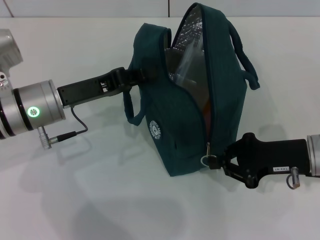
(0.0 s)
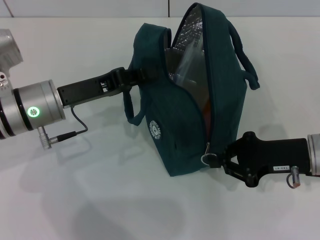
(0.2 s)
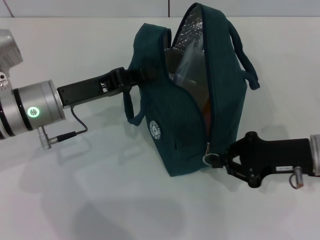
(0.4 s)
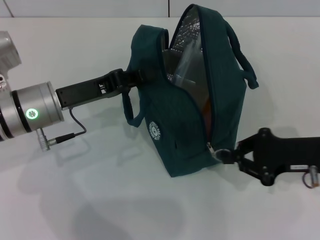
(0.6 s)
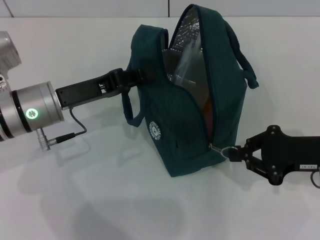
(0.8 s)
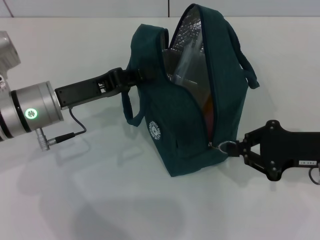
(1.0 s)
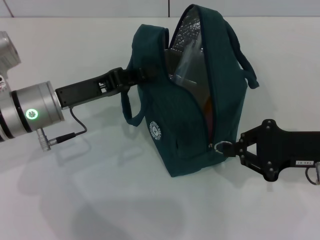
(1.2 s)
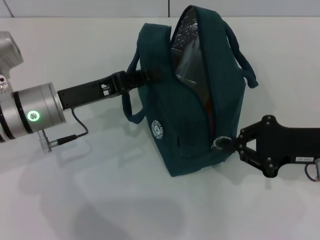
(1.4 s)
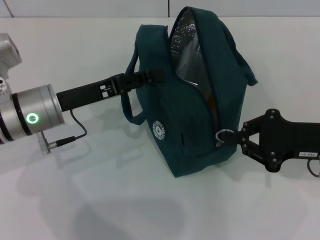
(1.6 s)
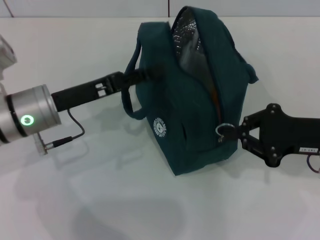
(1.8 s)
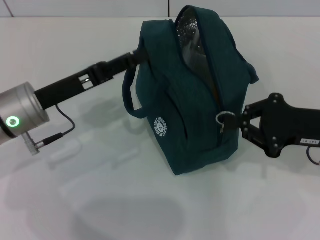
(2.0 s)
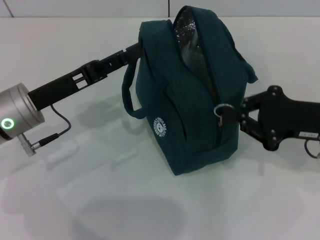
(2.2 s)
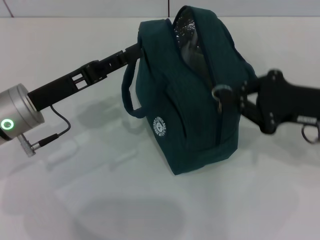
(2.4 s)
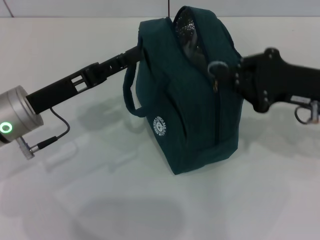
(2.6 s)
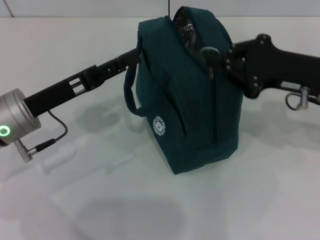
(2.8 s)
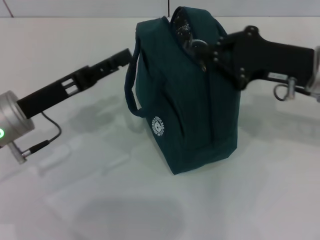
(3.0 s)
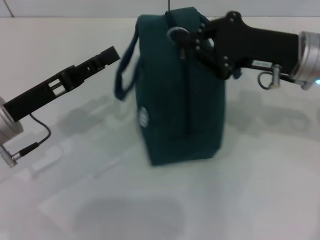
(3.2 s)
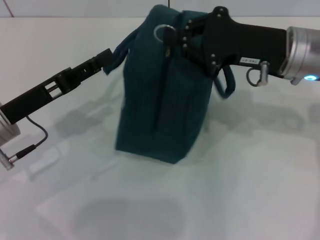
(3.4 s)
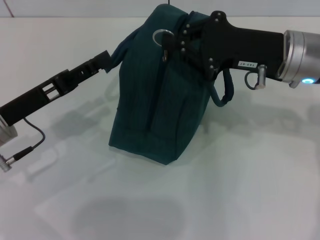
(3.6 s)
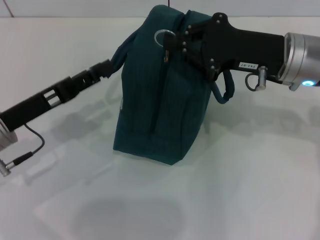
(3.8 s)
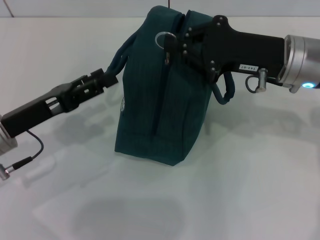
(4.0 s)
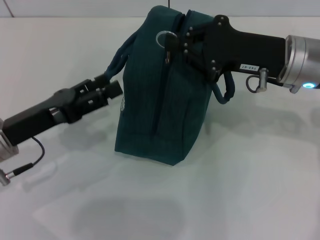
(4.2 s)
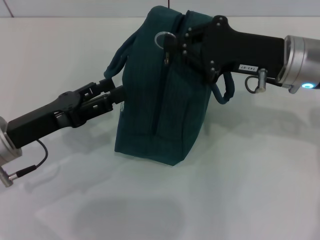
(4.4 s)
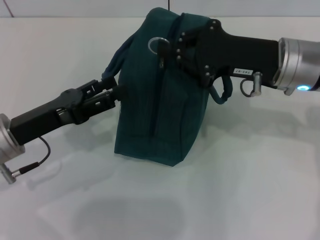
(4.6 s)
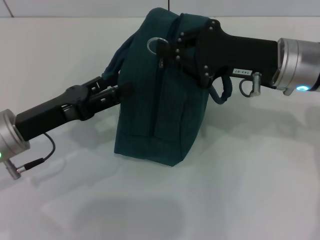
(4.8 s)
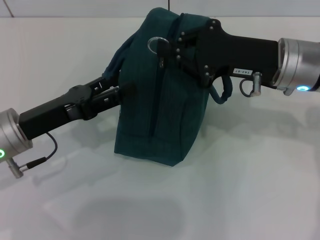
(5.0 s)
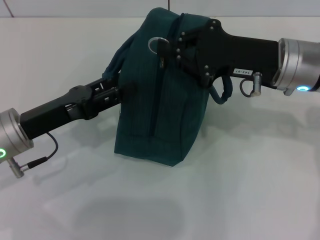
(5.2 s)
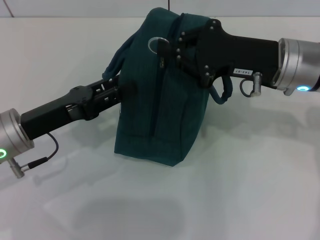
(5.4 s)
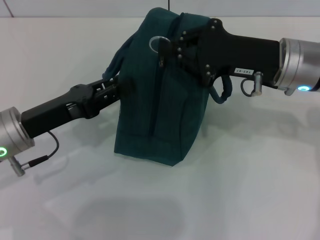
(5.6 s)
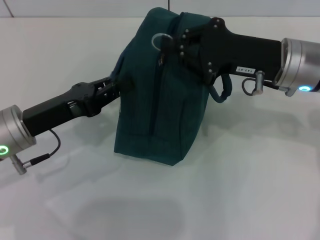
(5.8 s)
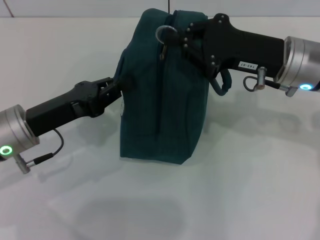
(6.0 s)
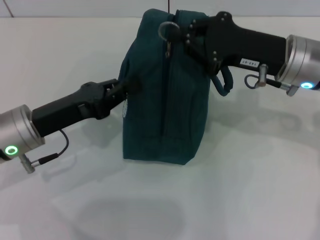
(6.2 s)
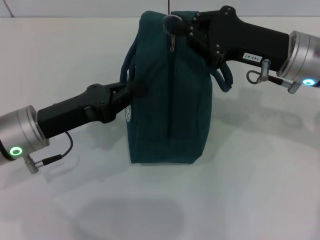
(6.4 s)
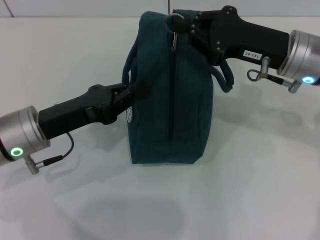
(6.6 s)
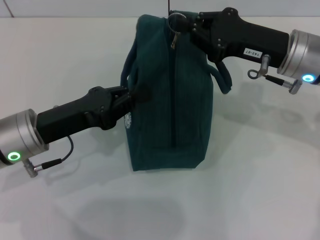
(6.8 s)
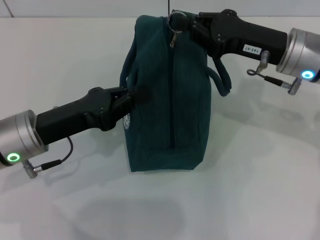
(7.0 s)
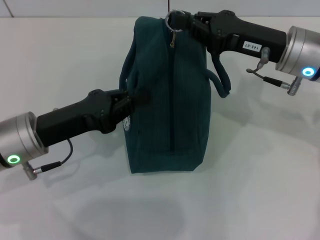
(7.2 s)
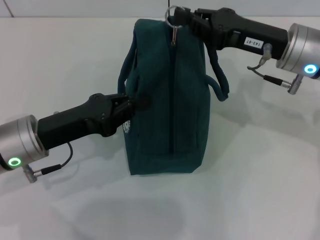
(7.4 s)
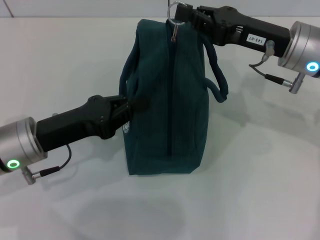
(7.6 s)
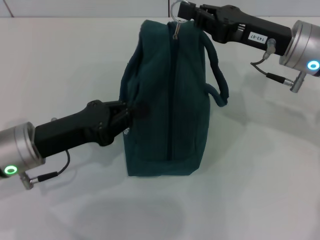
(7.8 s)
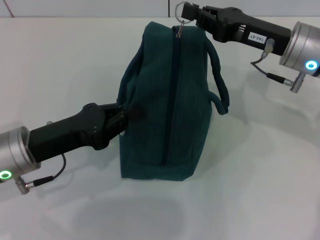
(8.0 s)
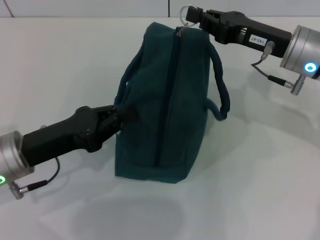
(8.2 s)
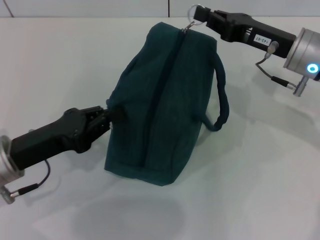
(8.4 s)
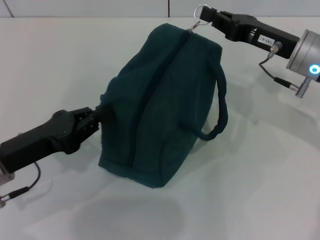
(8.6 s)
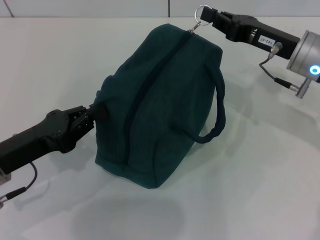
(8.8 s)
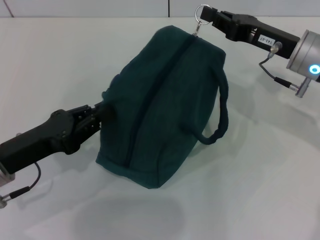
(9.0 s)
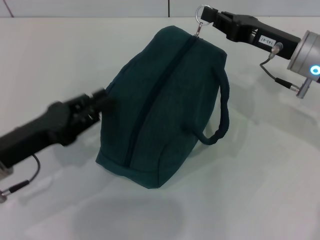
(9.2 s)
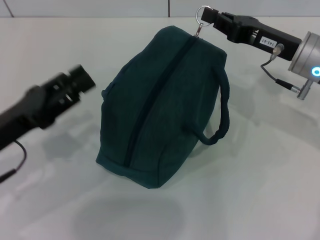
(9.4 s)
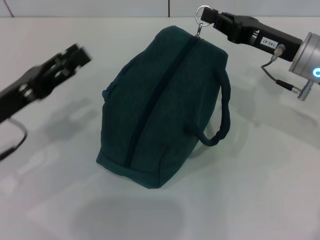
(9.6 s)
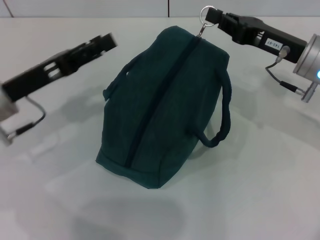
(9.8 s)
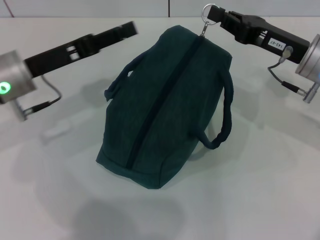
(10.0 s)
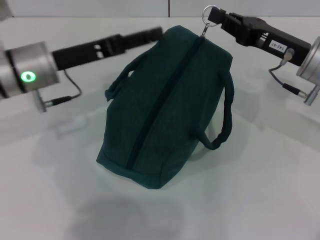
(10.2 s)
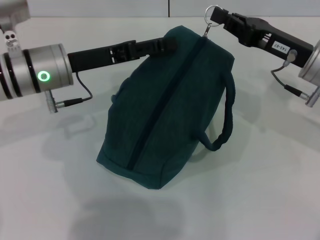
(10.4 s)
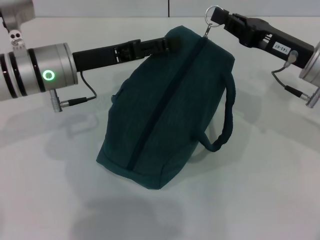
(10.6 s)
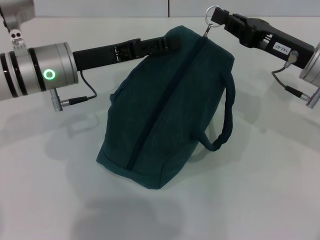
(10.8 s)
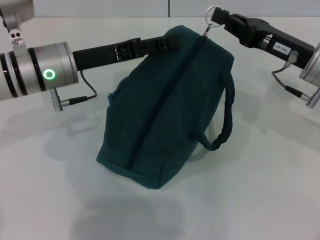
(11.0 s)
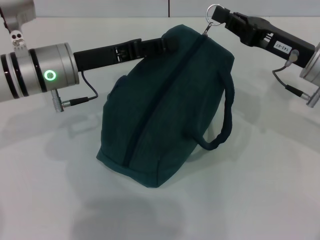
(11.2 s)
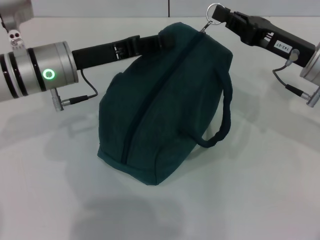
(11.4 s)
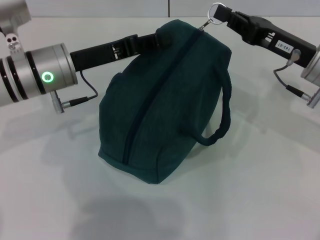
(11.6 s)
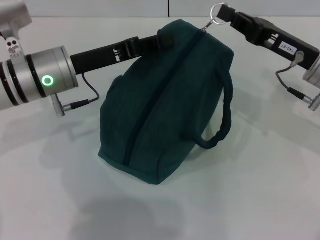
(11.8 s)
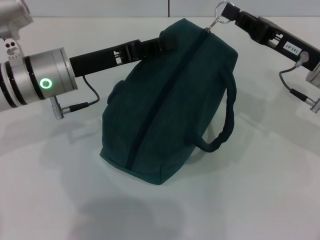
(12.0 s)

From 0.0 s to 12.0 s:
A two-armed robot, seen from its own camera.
From 0.0 s to 1.6 s: The left gripper opens up.
From 1.6 s to 3.0 s: The right gripper shifts some 10 cm forward and upward; the left gripper opens.
From 4.4 s to 6.0 s: The left gripper closes its fingers.
From 7.6 s to 9.0 s: The left gripper ends up about 5 cm from where it was.
From 9.0 s to 10.4 s: The left gripper goes approximately 15 cm forward, to the right and upward, and opens its fingers.
From 10.4 s to 12.0 s: The left gripper closes up.

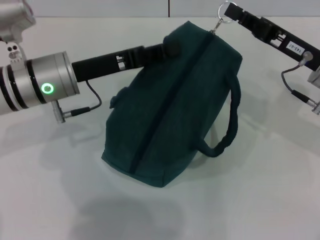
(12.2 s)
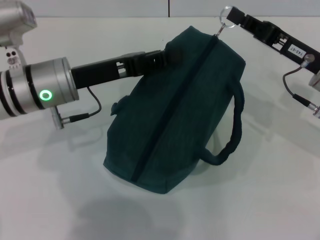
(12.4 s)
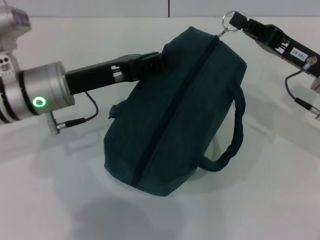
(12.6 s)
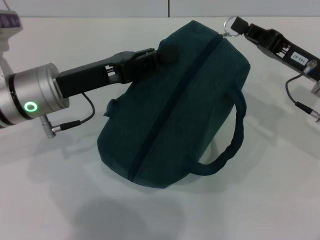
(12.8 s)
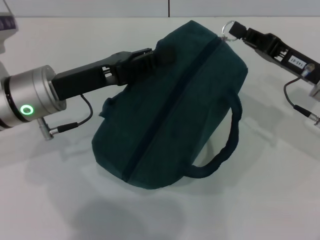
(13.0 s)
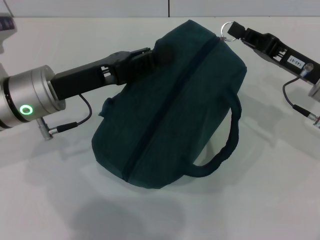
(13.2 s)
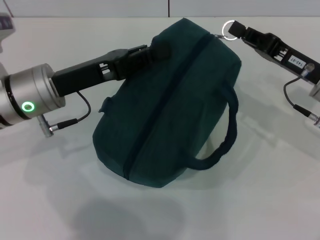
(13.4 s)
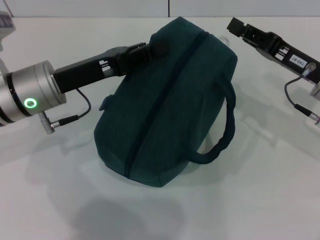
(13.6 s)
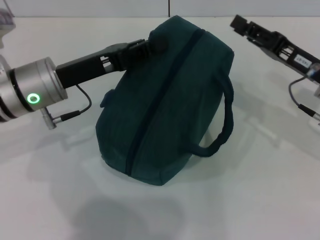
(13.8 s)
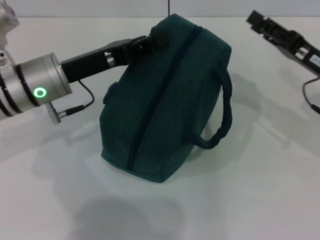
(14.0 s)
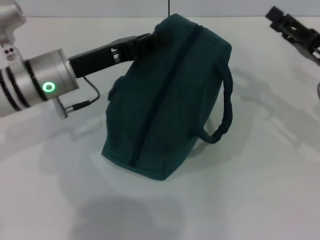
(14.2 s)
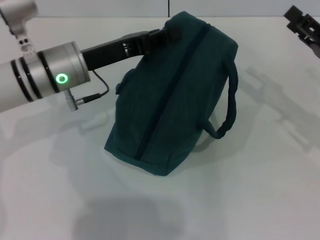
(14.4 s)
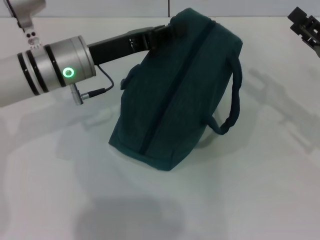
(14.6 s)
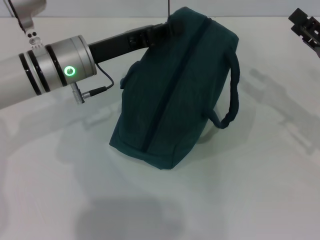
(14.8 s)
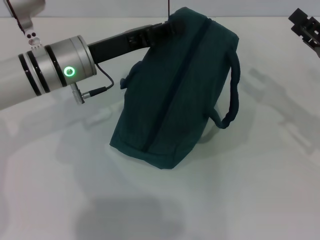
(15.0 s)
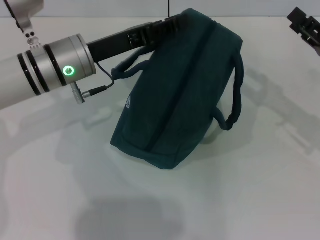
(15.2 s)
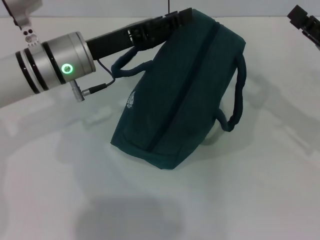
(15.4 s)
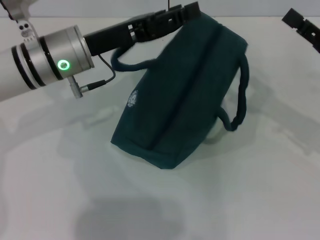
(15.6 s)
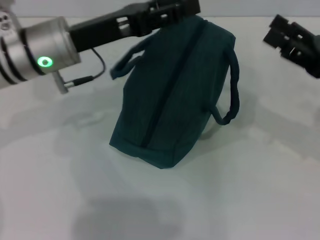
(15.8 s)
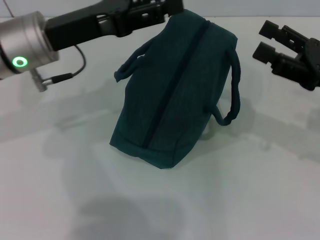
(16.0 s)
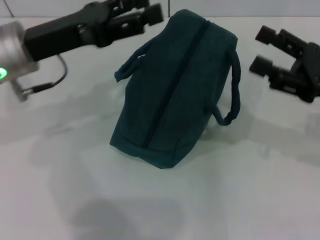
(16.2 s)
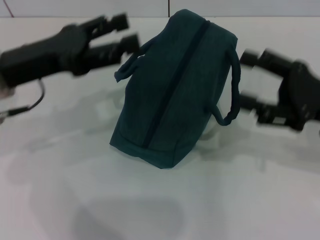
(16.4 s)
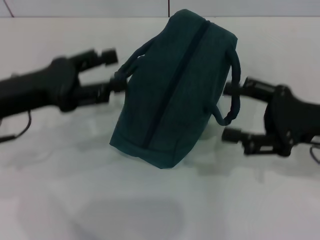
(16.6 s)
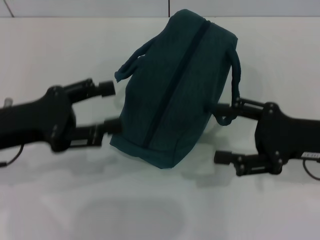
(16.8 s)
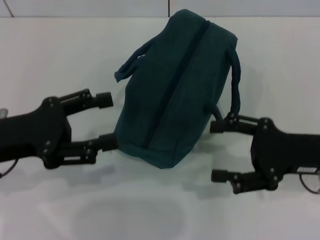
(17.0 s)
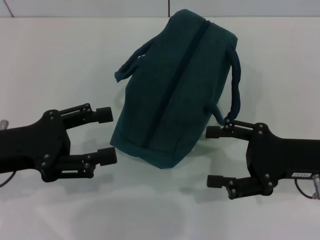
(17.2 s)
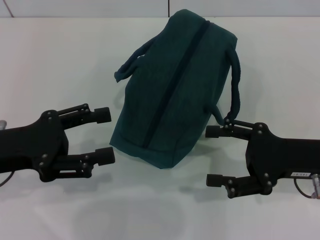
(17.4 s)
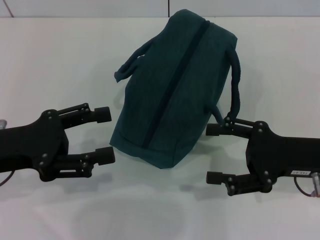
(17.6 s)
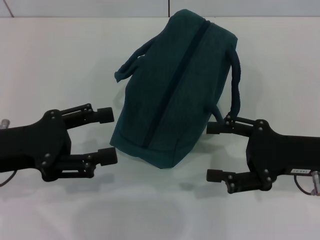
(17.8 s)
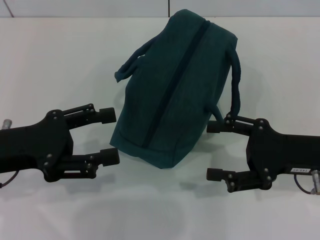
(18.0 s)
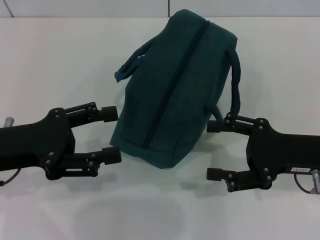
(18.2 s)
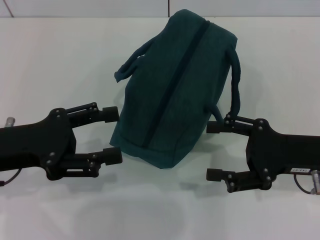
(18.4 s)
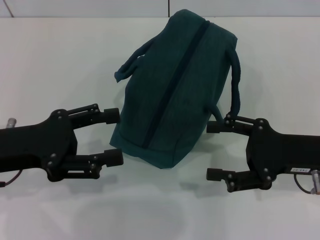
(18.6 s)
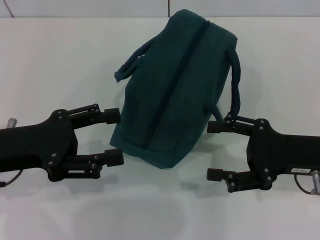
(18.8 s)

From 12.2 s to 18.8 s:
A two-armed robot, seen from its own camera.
Step, from 13.8 s to 15.4 s: Hold the lunch bag with your left hand.
From 12.2 s to 13.8 s: The grippers stay close to where they were, moving slightly.
From 13.8 s to 15.4 s: The right gripper travels to the right by approximately 5 cm, and opens its fingers. Meanwhile the left gripper shifts by roughly 5 cm.
From 15.4 s to 17.2 s: The left gripper goes about 15 cm backward and to the left, and opens up; the right gripper moves to the left, about 5 cm.
From 17.2 s to 18.8 s: Both grippers stay about where they are.
